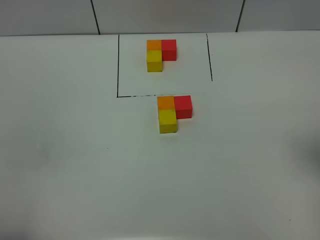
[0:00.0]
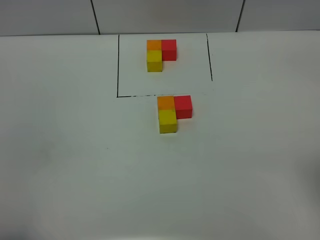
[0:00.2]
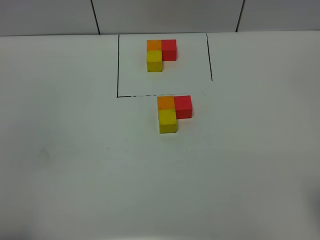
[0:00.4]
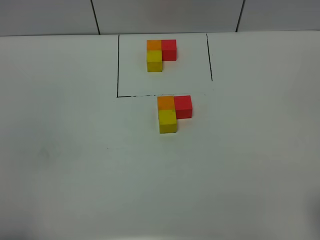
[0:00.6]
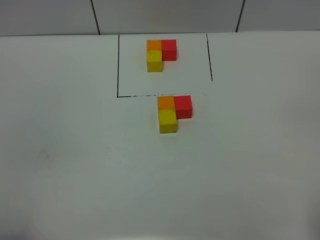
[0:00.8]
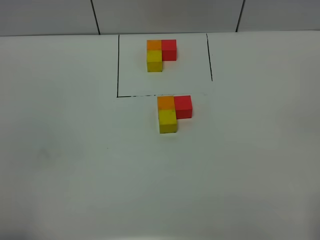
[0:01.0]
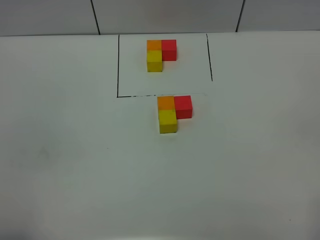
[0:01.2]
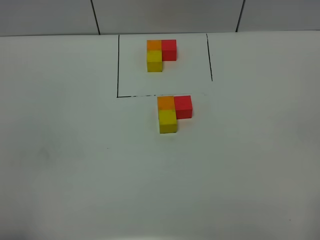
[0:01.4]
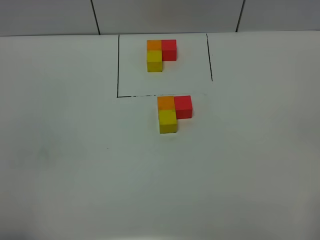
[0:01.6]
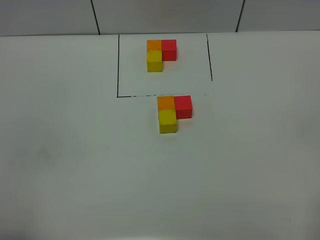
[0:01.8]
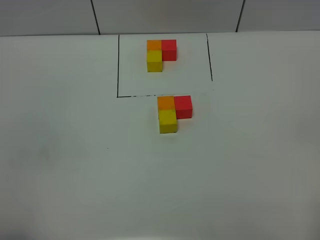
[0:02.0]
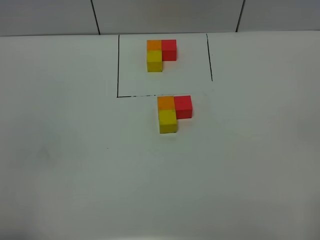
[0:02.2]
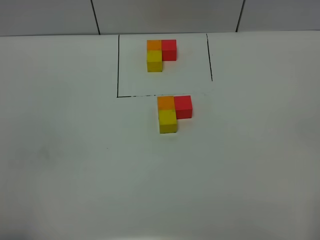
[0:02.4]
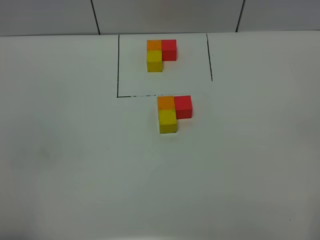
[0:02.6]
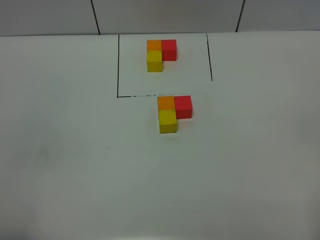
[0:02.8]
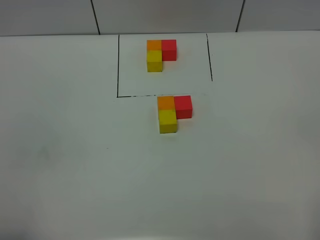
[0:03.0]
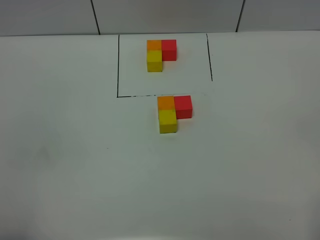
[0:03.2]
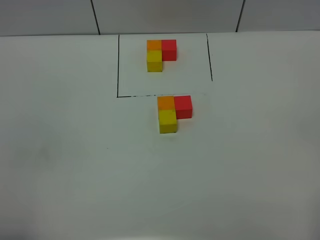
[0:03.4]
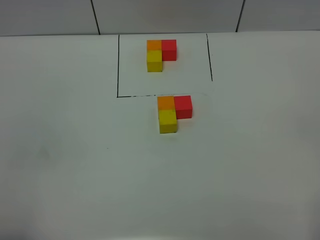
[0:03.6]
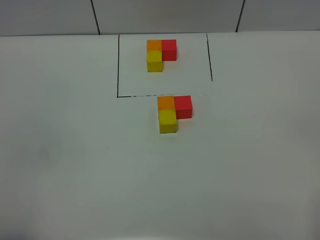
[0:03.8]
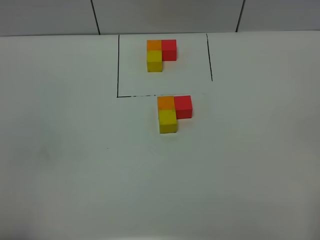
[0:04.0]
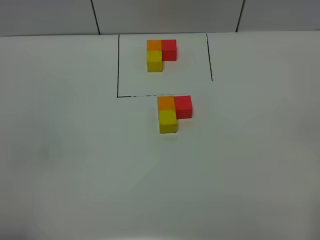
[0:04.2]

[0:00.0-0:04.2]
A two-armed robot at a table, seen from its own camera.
Task of the whole recording: According to the building block template in front, assemble the scattered blocks together.
0:01.4 to 0:04.2: Neither gripper changes place.
